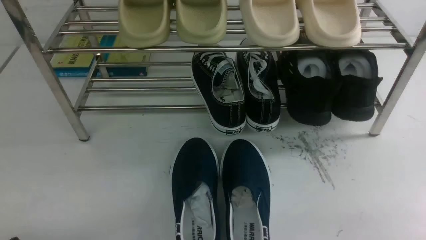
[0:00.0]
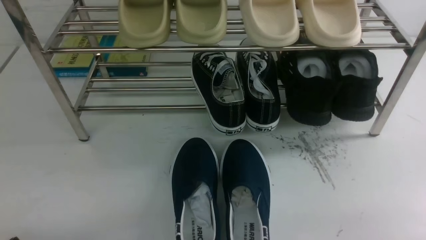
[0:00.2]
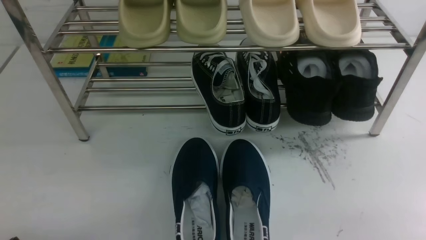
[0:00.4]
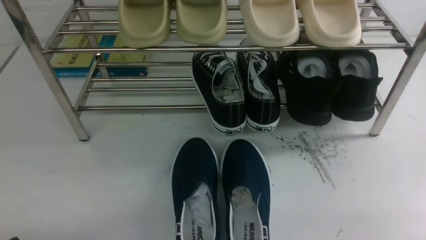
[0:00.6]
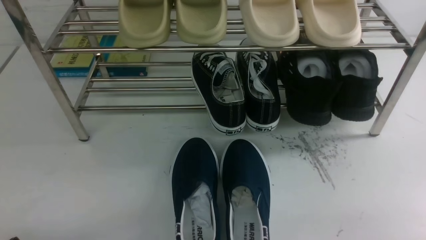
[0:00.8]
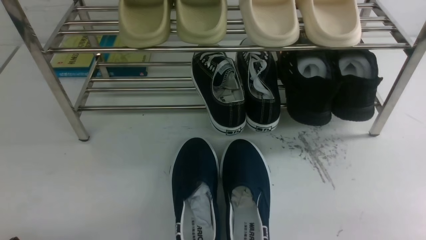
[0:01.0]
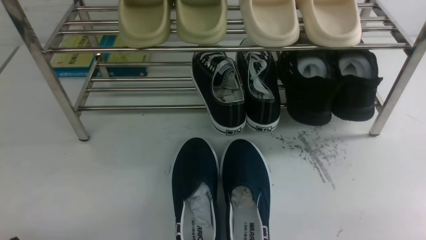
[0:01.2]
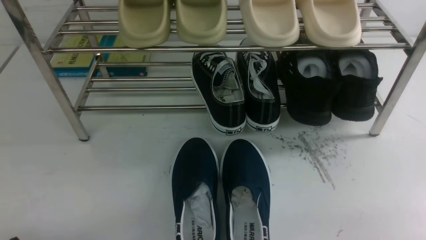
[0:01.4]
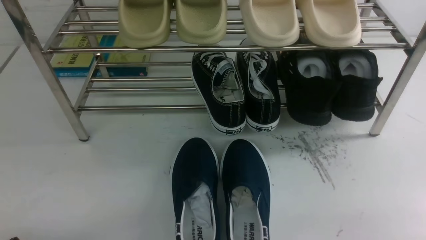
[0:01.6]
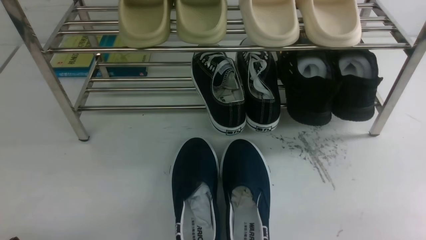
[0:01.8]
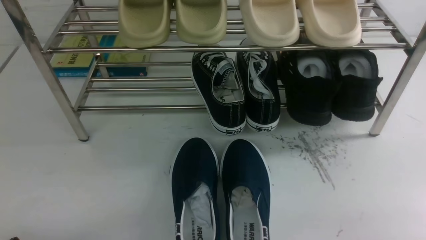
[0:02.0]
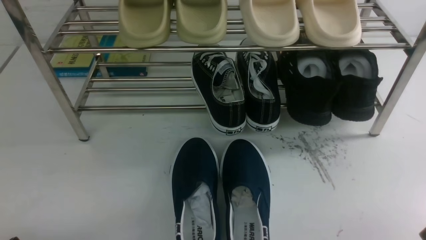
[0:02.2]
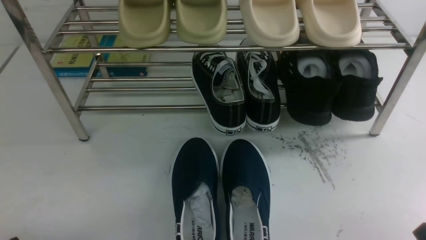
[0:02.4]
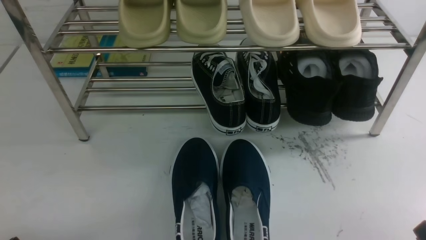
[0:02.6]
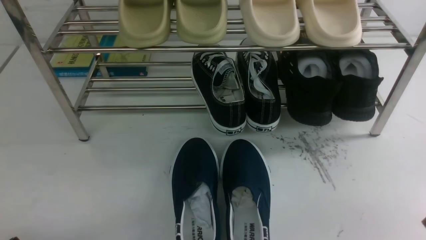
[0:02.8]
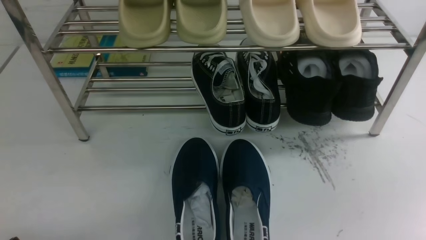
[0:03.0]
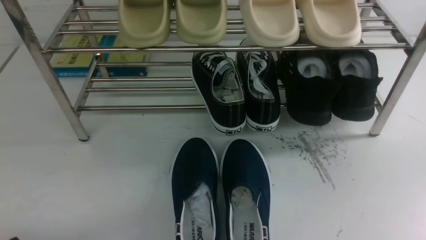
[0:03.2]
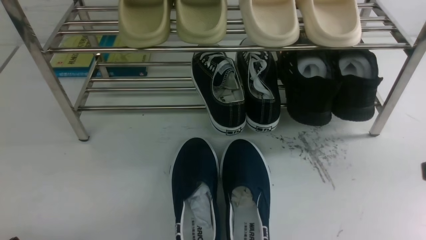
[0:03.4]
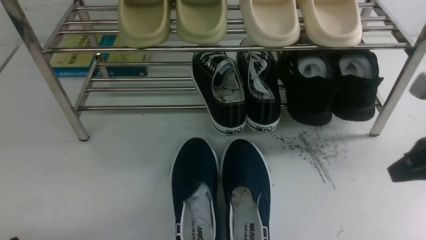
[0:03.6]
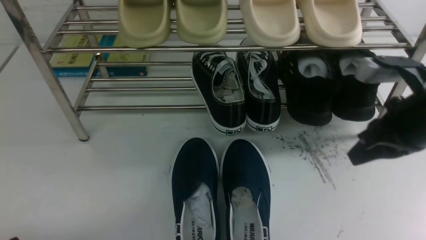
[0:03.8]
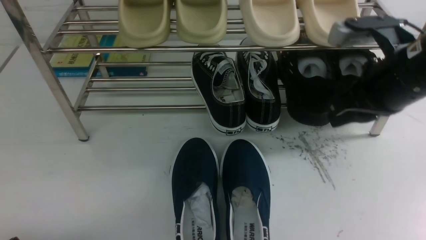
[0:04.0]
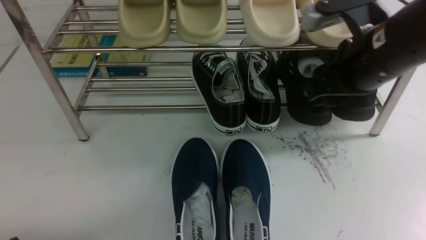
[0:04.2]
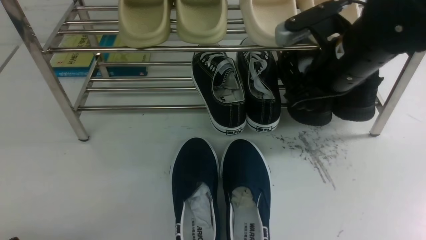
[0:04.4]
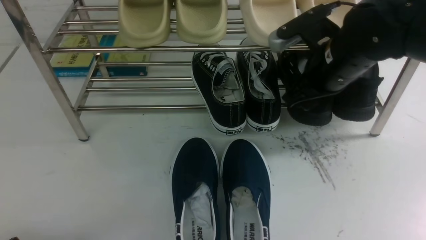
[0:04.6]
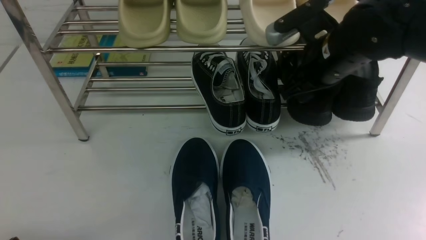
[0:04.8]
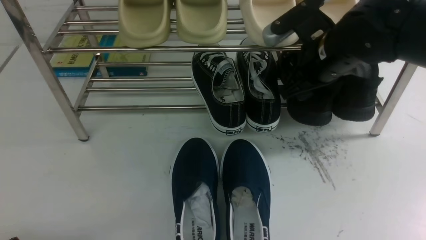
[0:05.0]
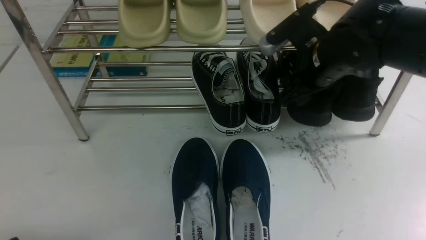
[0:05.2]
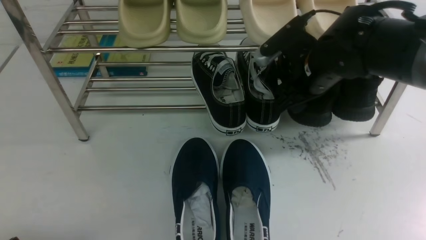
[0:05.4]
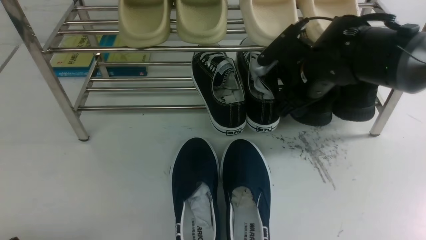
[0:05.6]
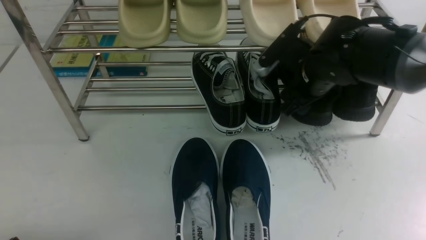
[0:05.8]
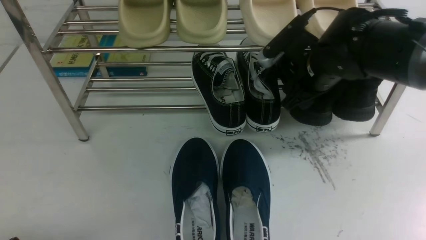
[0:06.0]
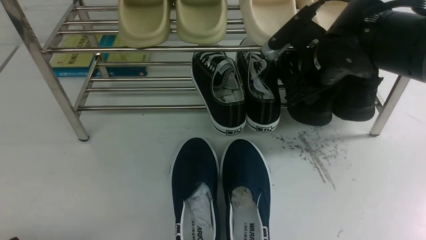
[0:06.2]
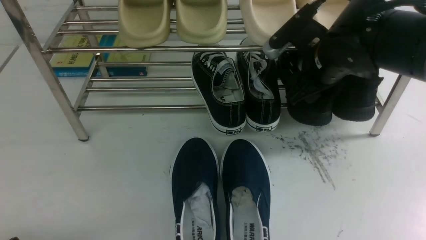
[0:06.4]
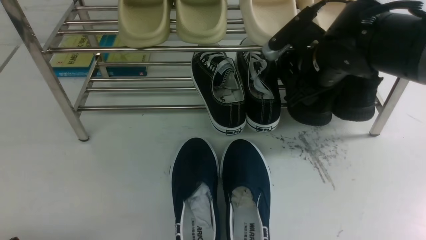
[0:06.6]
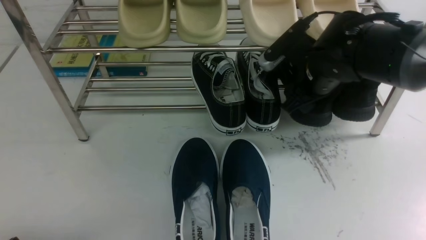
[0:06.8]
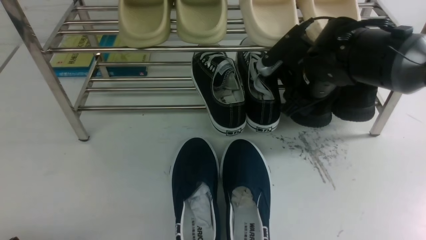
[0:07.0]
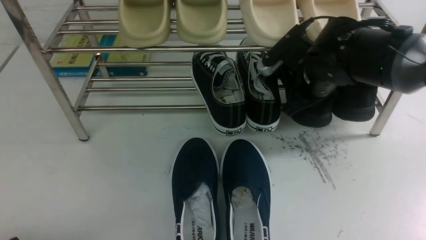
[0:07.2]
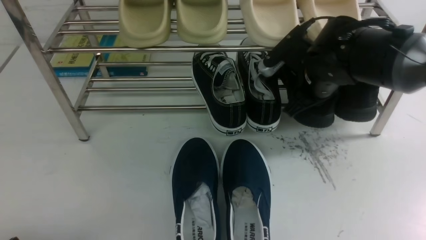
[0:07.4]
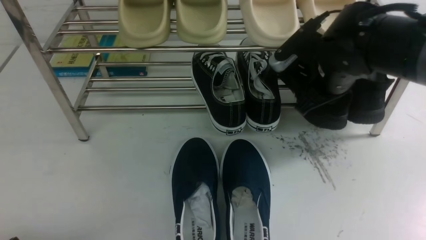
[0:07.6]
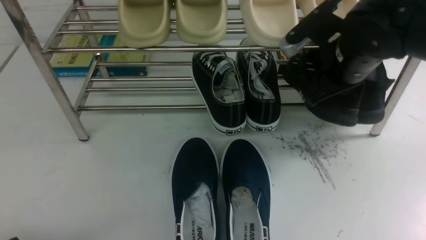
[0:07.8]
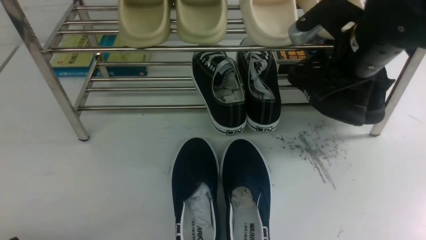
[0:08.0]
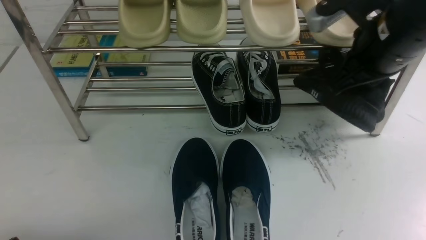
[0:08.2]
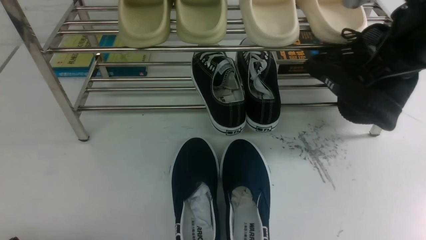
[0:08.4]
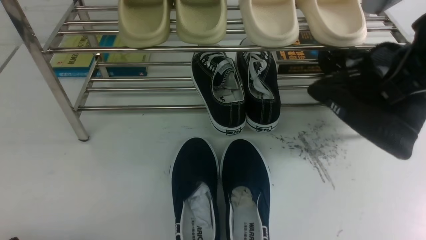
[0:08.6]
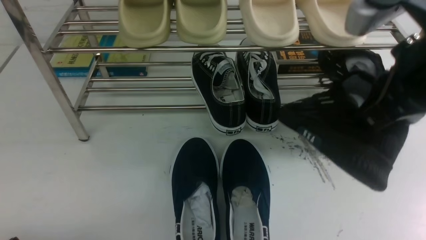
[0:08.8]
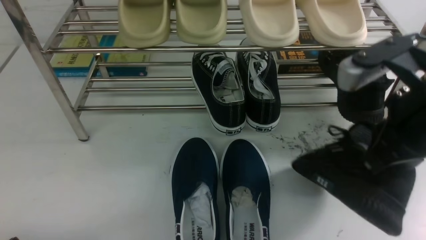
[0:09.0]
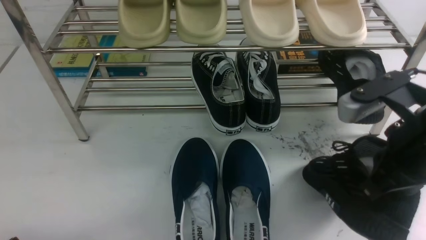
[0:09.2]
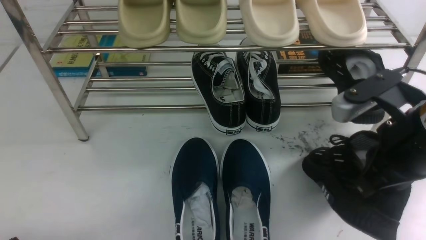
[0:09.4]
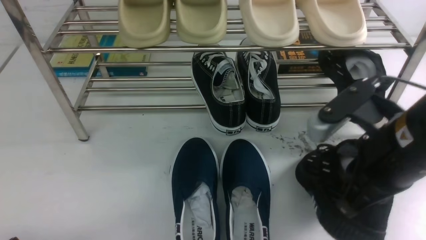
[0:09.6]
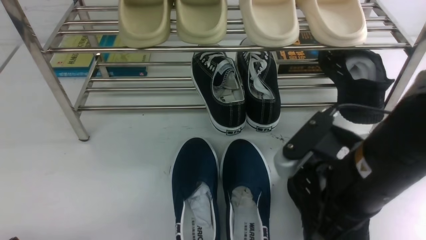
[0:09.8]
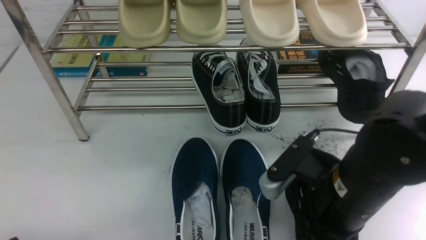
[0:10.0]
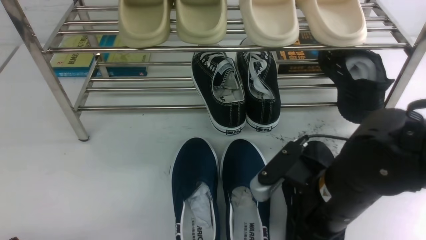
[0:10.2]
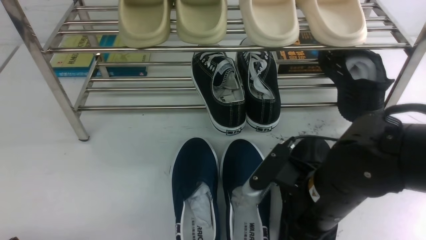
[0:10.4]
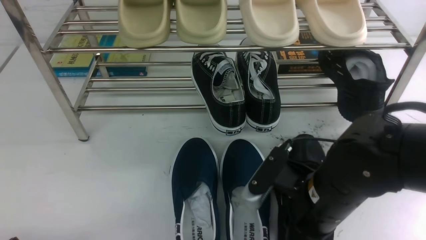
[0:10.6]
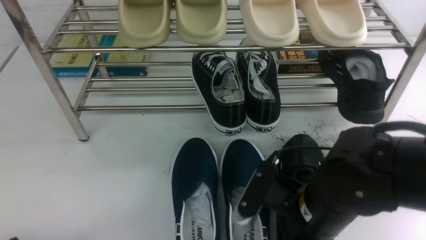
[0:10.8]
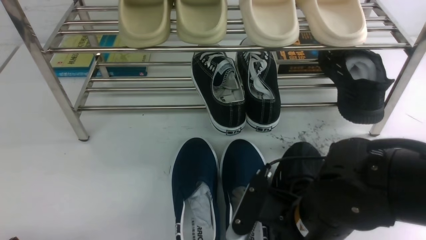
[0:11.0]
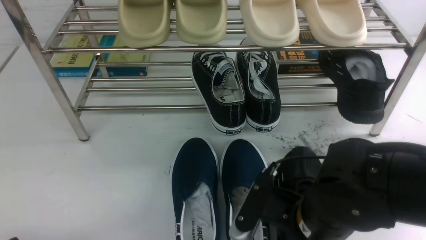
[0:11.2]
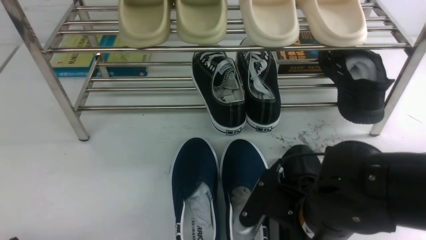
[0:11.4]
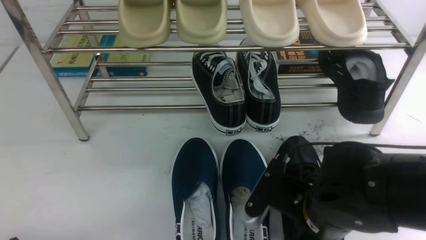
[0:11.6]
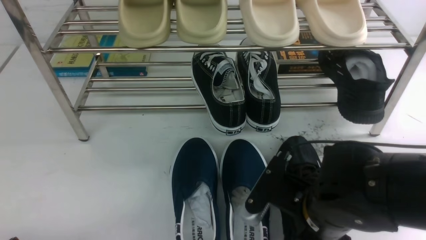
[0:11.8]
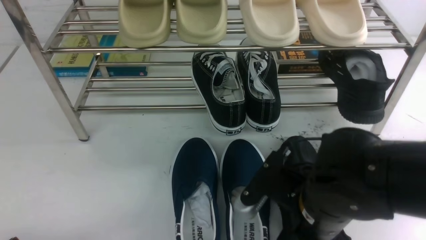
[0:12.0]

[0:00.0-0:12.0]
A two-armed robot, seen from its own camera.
Step, 0:00.0 to 0:08.0: use the right arm to clamp a shoe on the right side of the shoe rack.
0:00.0 to 0:01.6: The two grippers keep their place.
0:03.0 to 0:04.4: The right gripper heads forward and to the left, covering about 30 cm, and opens.
0:04.4 to 0:06.0: The right gripper heads forward and downward, covering about 5 cm.
0:06.0 to 0:07.6: The right gripper closes up.
0:07.6 to 0:09.0: The right gripper is displaced backward and upward by approximately 15 cm.
0:09.0 to 0:10.4: The right gripper goes roughly 15 cm downward and to the left.
0:10.4 to 0:12.0: The right gripper opens up.

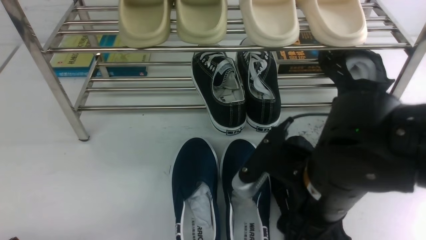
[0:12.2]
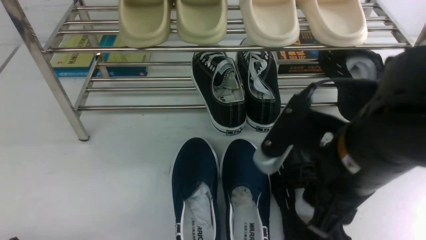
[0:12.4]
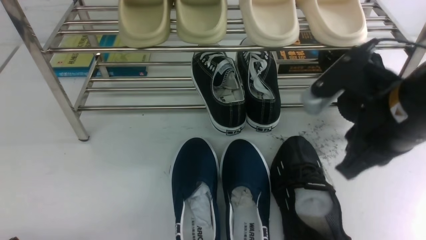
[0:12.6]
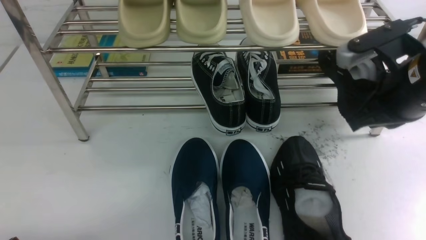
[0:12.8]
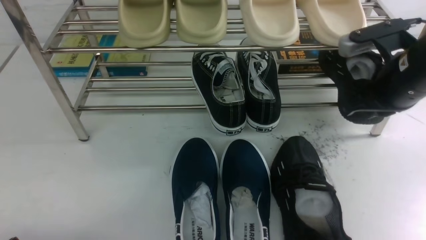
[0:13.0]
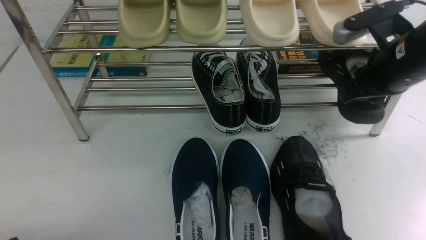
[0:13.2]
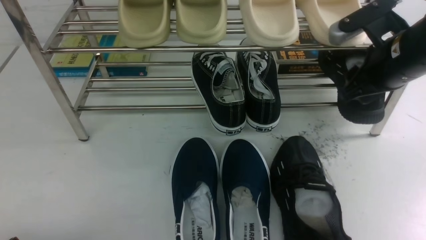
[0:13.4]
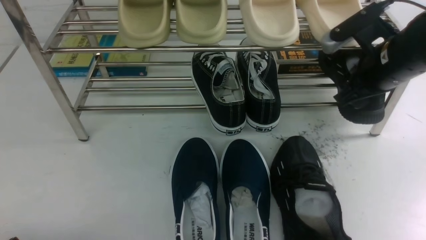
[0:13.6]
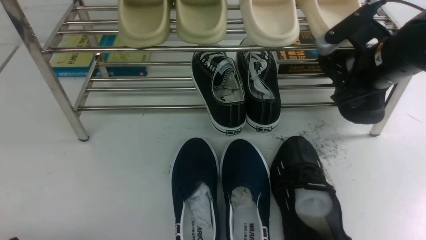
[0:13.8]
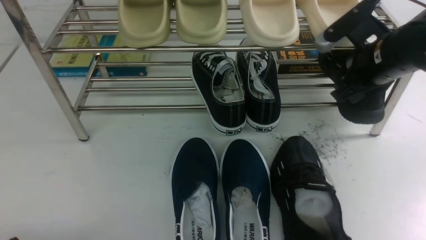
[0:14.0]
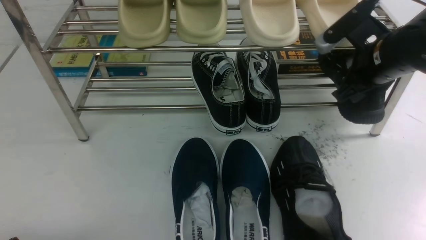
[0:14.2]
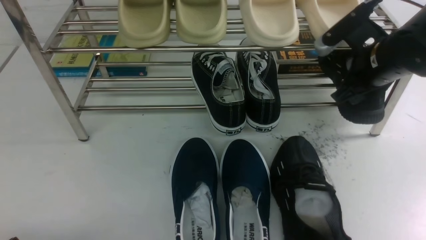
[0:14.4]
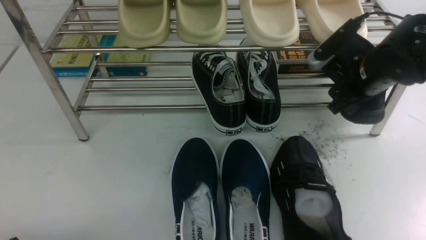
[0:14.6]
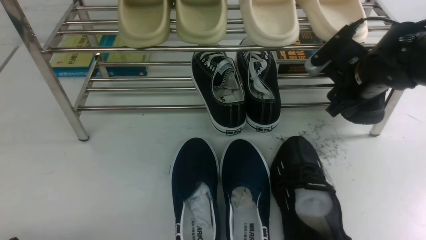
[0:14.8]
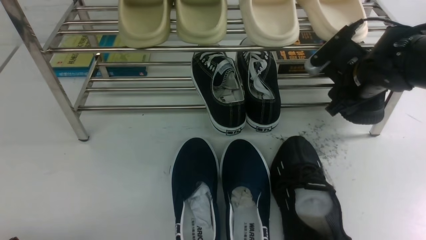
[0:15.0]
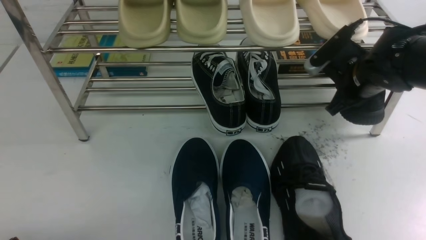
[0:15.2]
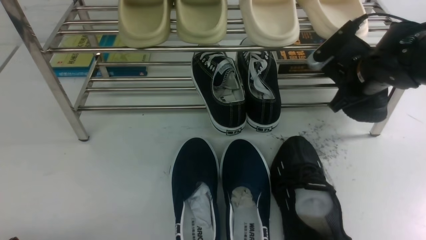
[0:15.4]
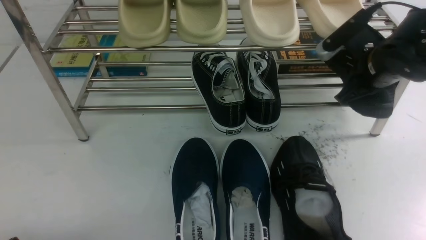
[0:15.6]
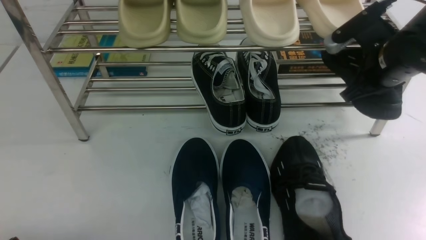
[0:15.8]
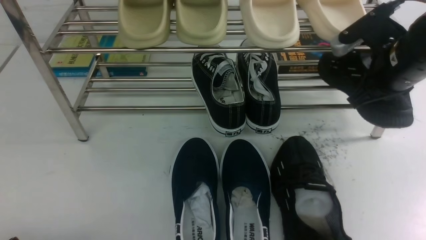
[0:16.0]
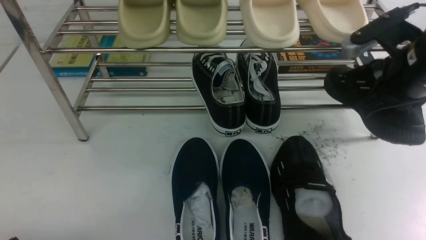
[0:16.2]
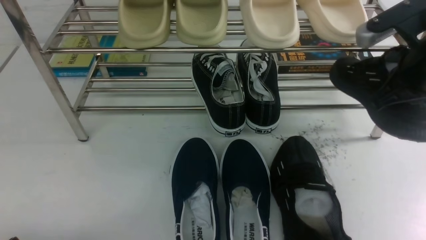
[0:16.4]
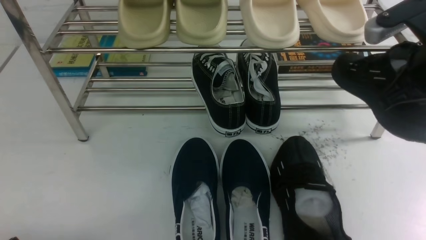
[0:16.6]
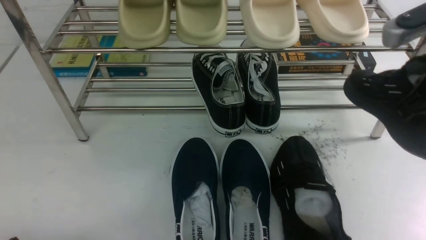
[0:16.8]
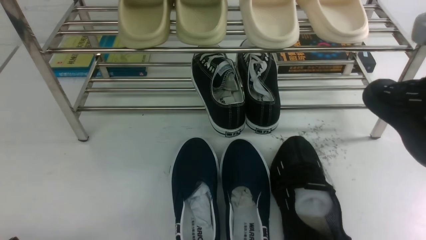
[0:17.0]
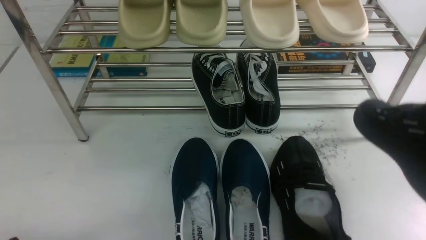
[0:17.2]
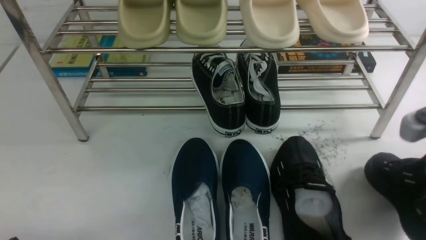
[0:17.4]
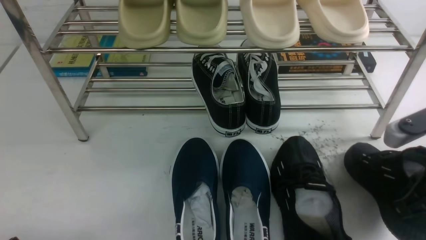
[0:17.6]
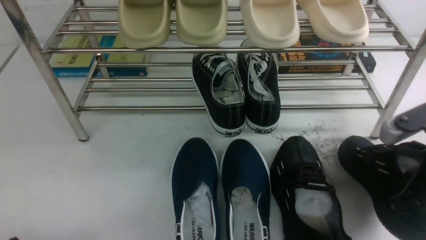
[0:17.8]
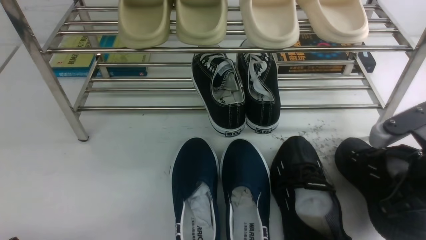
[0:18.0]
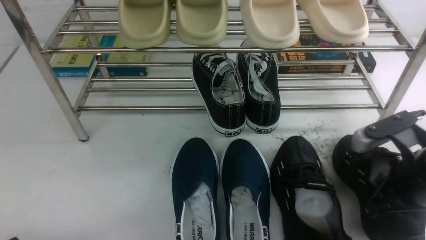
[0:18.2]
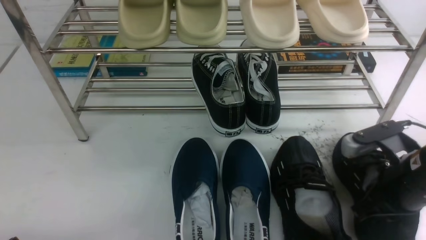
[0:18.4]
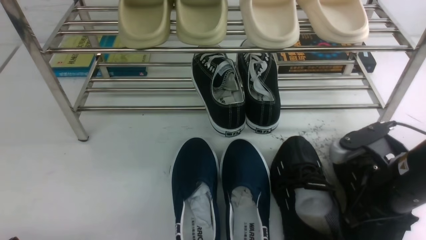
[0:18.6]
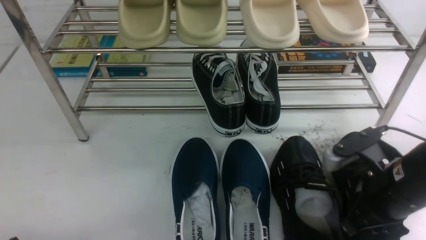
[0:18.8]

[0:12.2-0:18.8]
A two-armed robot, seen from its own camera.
Step, 0:12.4 to 0:15.8: use the right arm to clamp a shoe on the right side of the shoe rack.
0:12.2 to 0:13.8: The right gripper shifts roughly 20 cm forward and to the right, and closes and opens again.
0:13.8 to 0:15.4: The right gripper closes up.
0:15.4 to 0:17.2: The right gripper heads backward and upward, covering about 20 cm.
0:17.2 to 0:18.8: The right gripper moves downward, roughly 15 cm, and opens.
